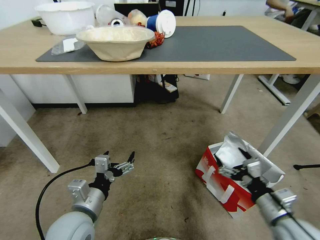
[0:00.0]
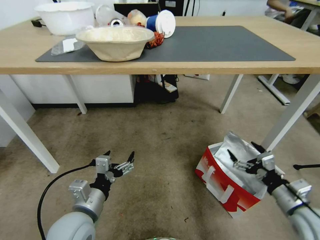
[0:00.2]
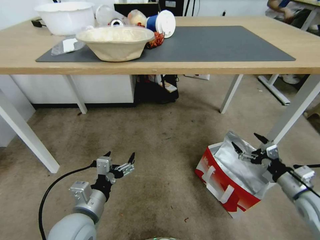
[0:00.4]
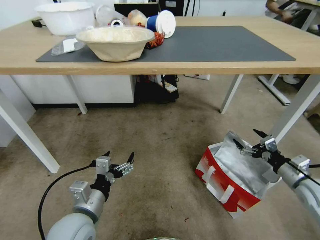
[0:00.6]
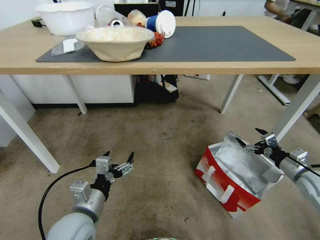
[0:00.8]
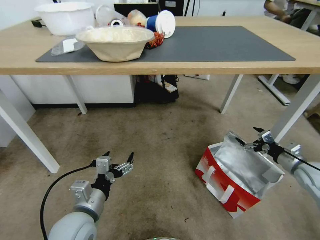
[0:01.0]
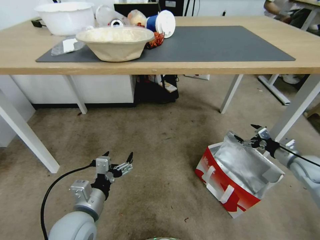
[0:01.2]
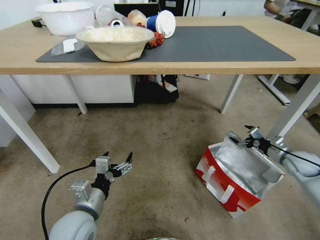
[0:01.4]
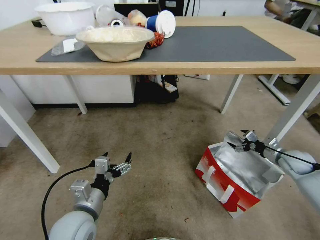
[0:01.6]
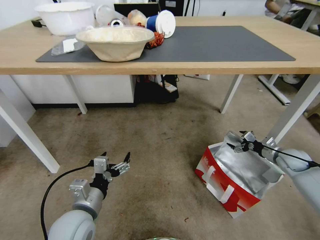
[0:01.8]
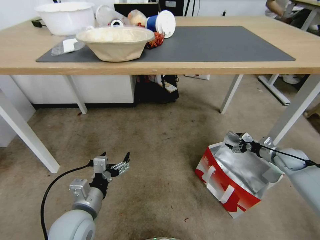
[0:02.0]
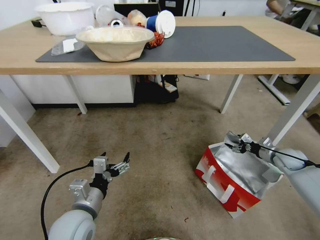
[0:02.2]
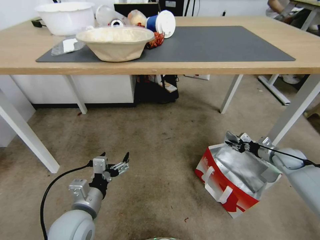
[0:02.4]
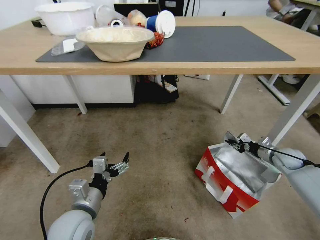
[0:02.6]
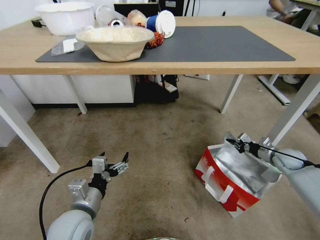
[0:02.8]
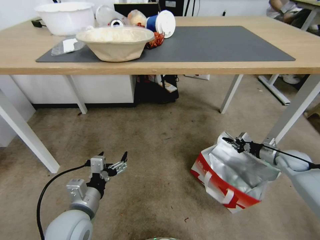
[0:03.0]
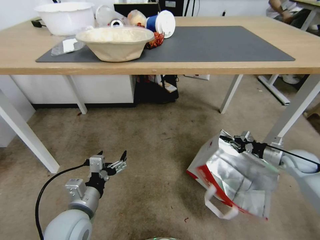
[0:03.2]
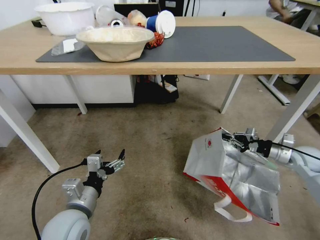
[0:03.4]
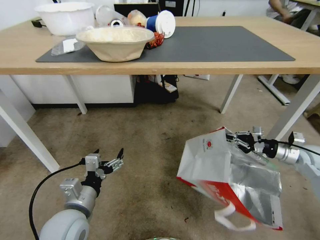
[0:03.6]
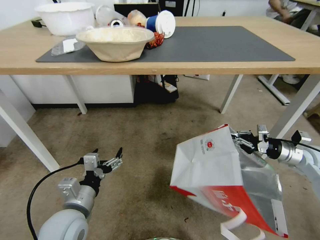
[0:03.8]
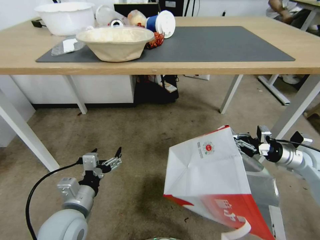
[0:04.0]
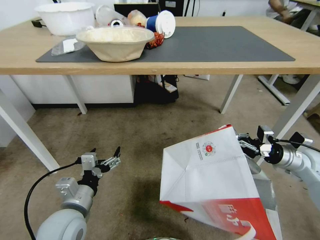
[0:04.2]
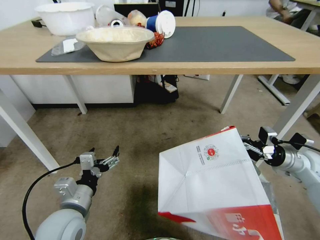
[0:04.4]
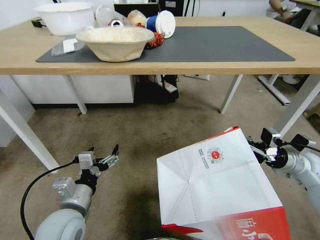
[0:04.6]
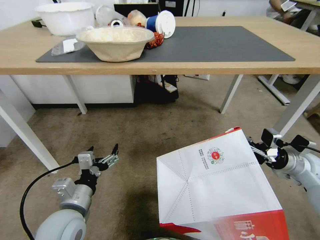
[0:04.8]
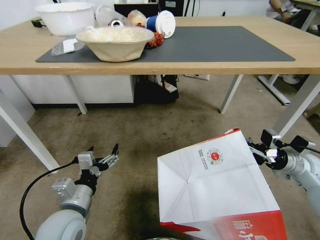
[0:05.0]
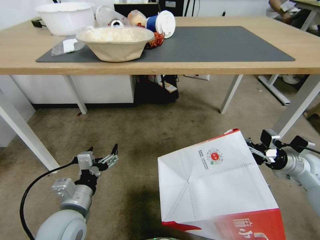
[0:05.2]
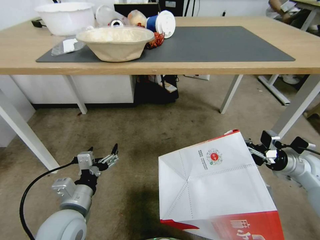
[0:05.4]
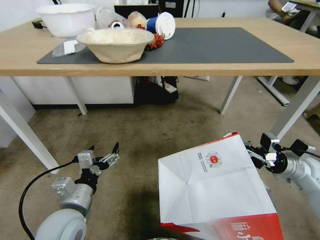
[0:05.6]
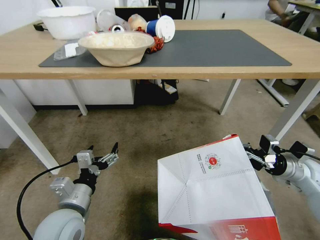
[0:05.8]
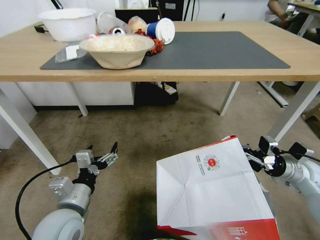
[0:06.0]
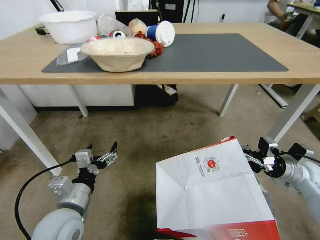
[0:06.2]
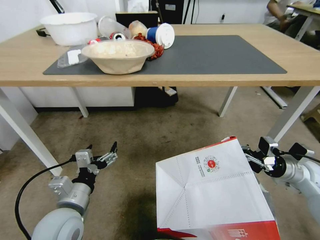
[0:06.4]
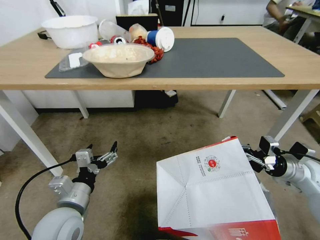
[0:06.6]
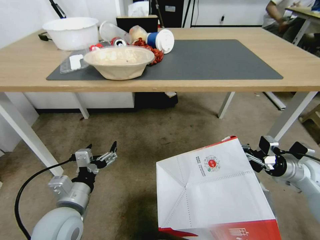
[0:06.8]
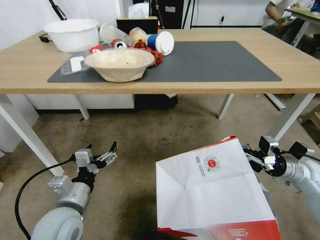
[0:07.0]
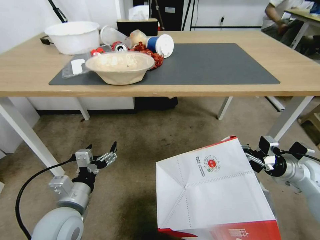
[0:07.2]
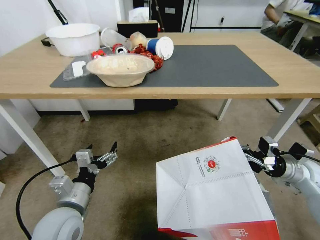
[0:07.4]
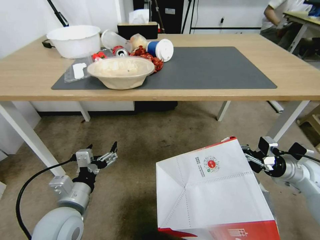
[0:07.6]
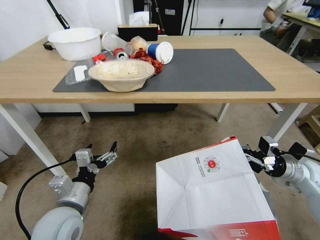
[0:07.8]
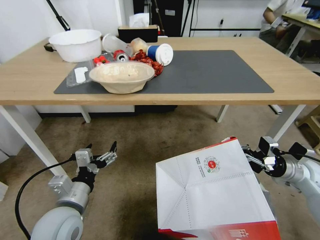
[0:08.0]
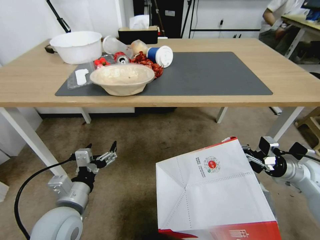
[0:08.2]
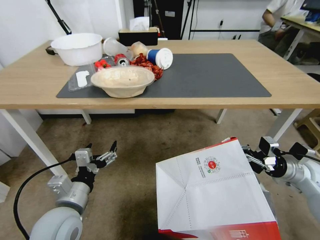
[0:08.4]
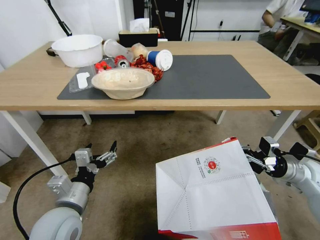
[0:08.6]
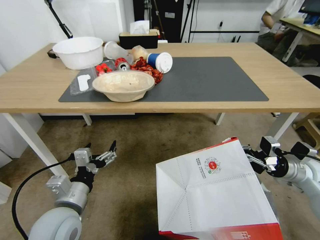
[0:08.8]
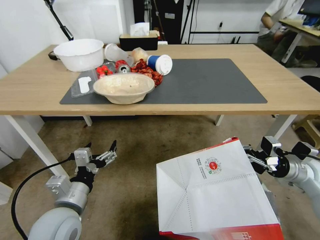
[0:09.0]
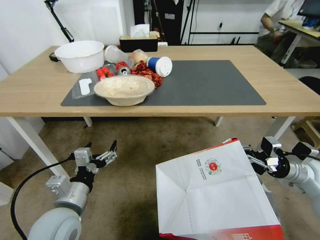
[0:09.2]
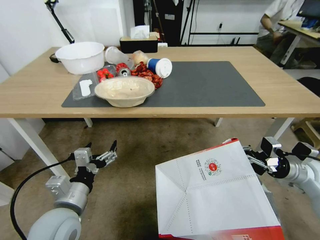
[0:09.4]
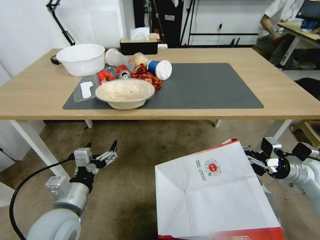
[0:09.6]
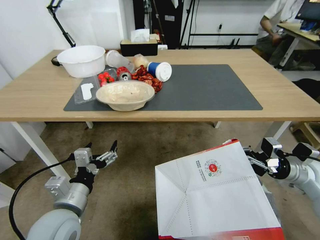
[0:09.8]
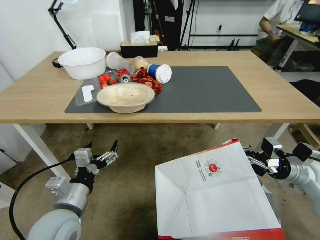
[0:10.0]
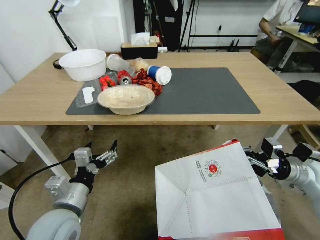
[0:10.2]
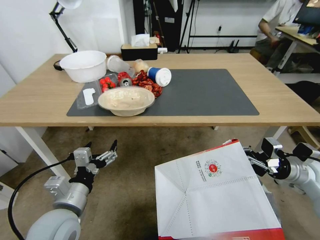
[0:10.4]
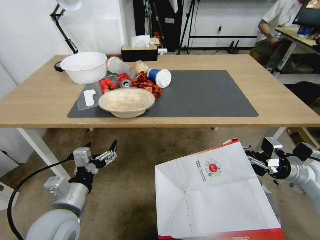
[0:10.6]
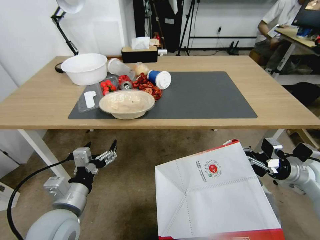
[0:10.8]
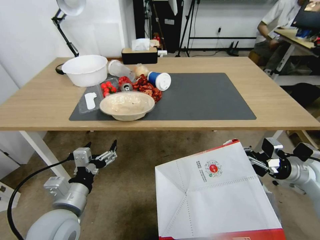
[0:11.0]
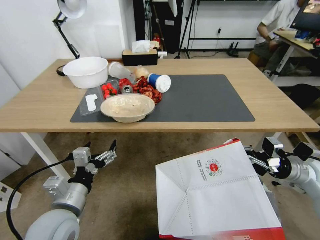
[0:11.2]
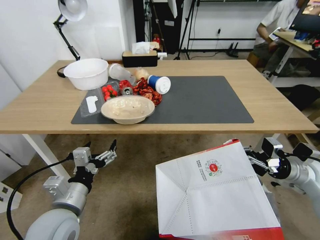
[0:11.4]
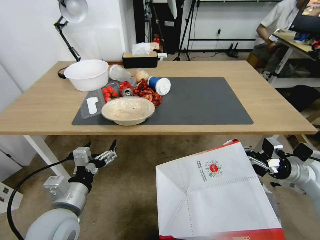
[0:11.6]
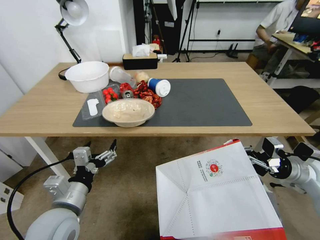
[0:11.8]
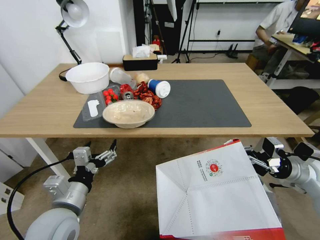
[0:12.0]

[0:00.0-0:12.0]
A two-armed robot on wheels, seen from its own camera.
Task of the whole recording: Pick up the food delivery bag from the floor and place it on the table.
0:00.0 to 0:01.6: The right gripper heads forward and to the right, covering some 30 cm.
0:01.6 to 0:03.0: The right gripper closes its fingers.
0:03.0 to 0:04.4: The right gripper goes roughly 10 cm upward, to the left and backward.

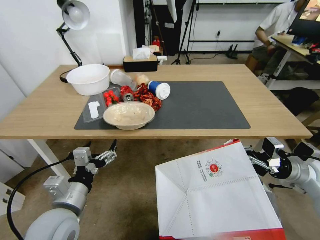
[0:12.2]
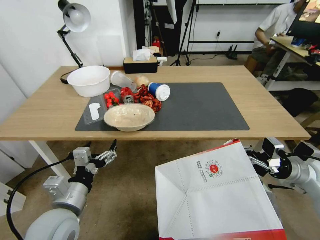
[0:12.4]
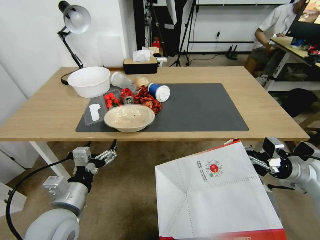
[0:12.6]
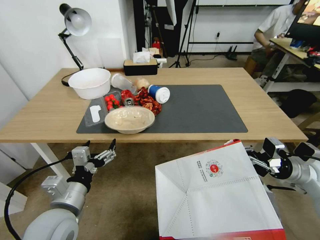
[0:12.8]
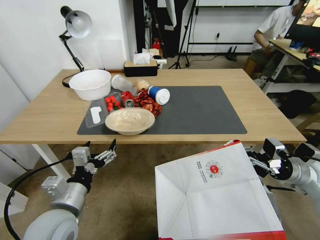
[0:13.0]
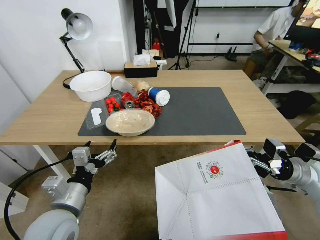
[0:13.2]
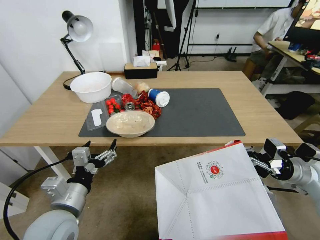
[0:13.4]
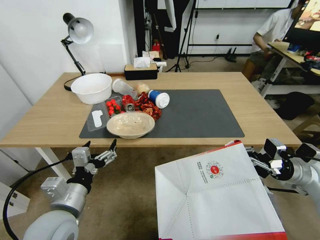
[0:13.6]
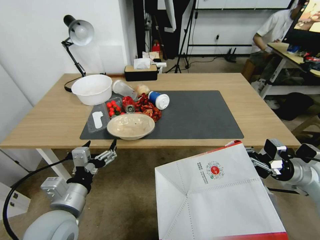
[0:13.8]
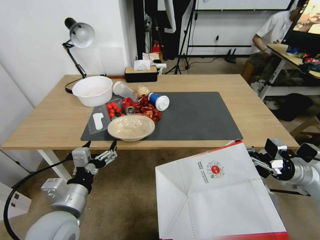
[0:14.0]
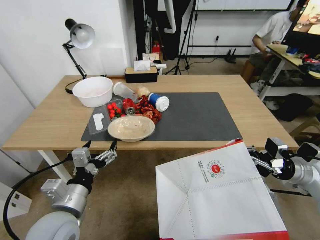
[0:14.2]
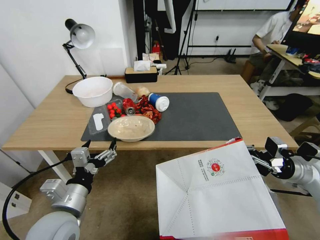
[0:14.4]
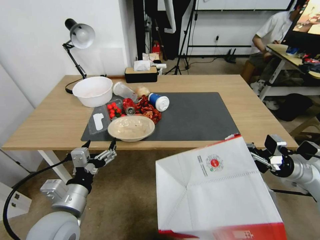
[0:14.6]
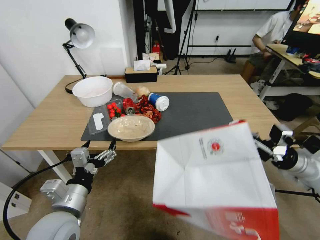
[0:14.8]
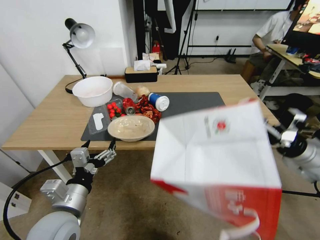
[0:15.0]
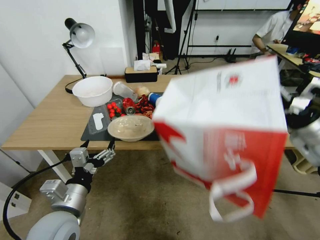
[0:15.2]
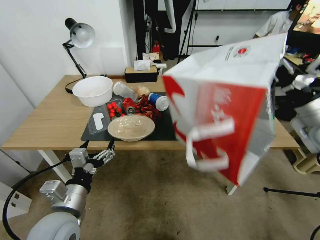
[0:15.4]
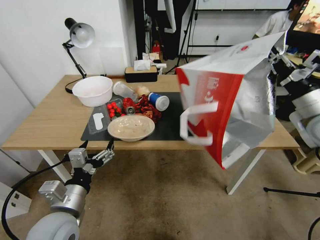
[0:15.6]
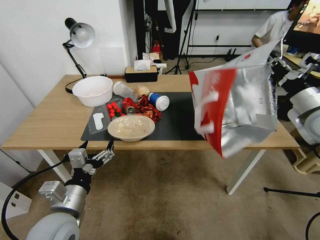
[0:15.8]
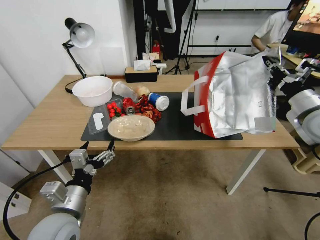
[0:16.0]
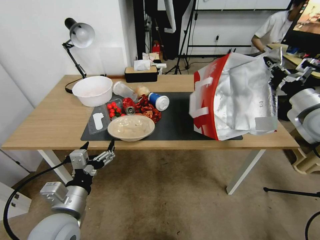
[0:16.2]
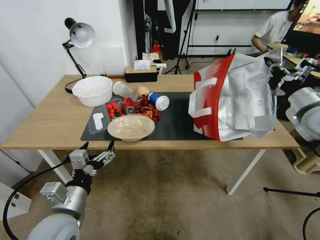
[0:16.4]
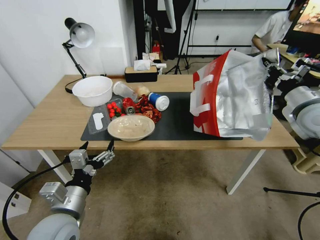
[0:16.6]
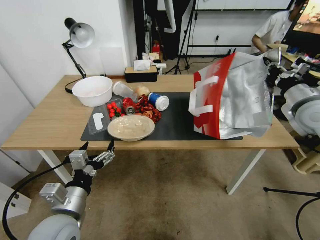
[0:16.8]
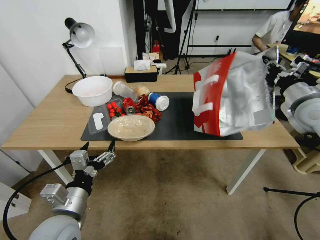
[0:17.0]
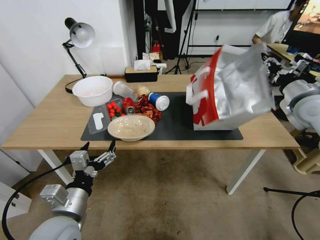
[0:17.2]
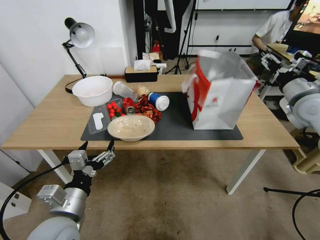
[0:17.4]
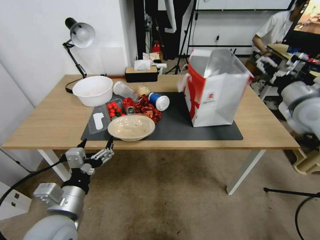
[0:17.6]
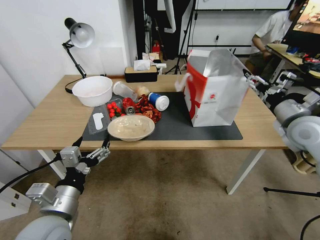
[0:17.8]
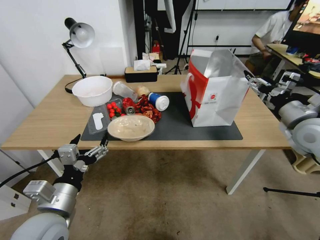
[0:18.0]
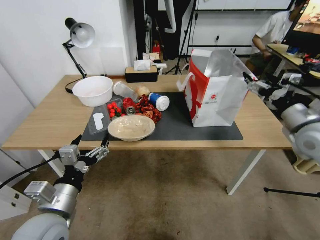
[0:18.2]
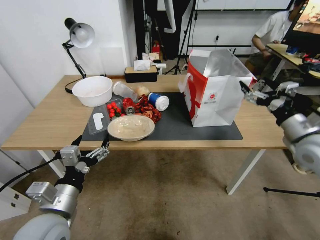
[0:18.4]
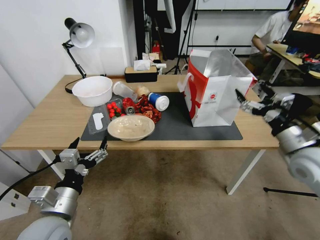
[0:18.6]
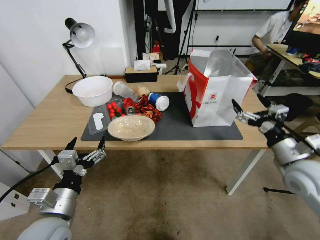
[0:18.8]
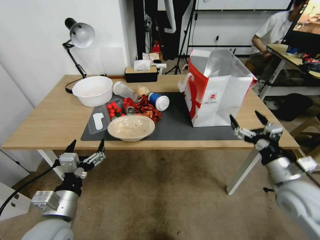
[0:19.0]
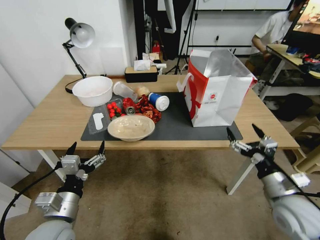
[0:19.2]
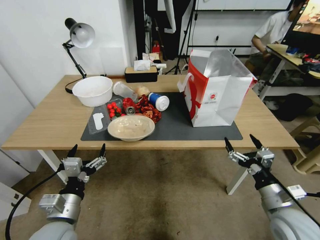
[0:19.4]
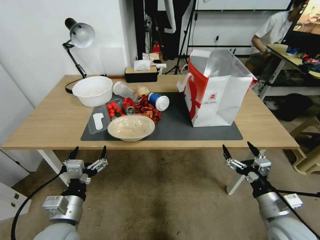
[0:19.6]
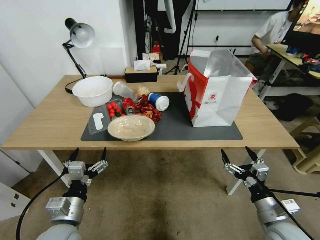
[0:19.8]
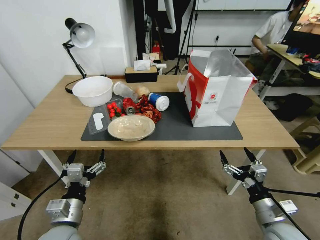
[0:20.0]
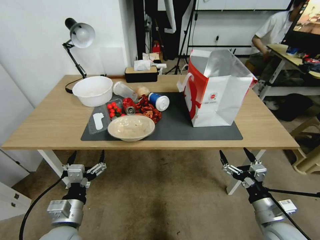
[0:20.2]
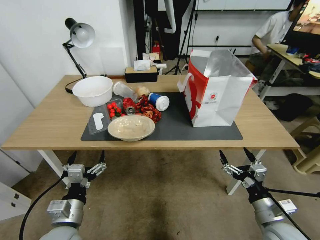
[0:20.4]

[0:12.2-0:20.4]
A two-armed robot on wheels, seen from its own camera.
Task of the whole recording: Pick up the food delivery bag from the floor and place it on the table.
0:13.8 to 0:15.4: The right gripper is displaced upward by roughly 15 cm.
0:15.4 to 0:17.2: The right gripper is displaced forward by some 5 cm.
0:17.2 to 0:18.8: The right gripper moves backward and downward, about 20 cm, and opens its fingers.
0:18.8 to 0:20.4: The left gripper travels downward by some 5 cm. The right gripper moves downward and backward, some 15 cm.

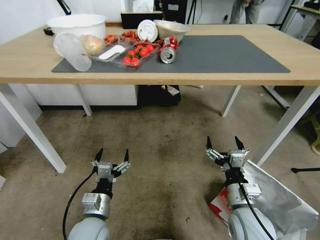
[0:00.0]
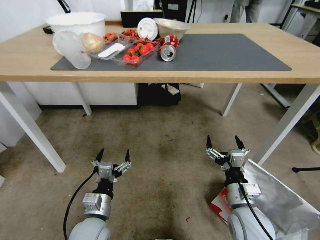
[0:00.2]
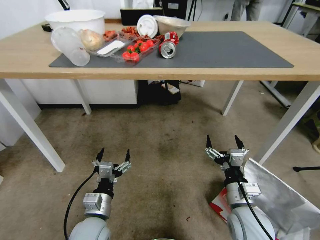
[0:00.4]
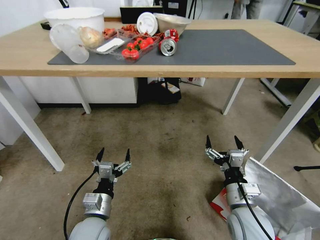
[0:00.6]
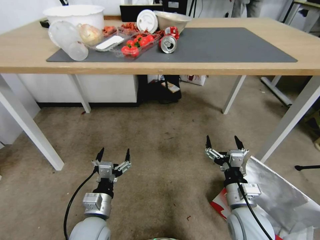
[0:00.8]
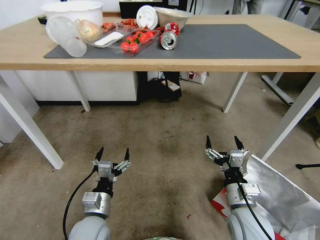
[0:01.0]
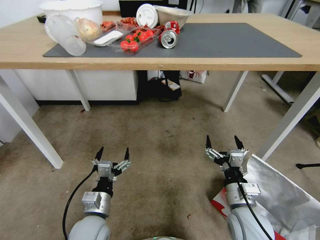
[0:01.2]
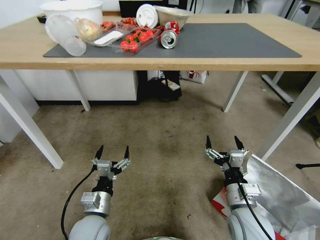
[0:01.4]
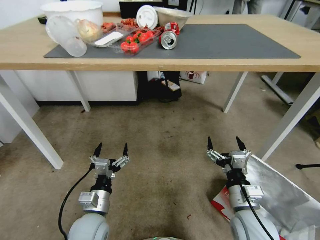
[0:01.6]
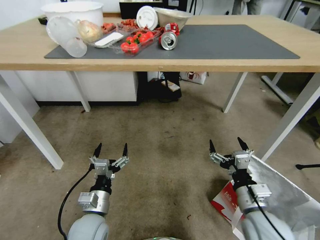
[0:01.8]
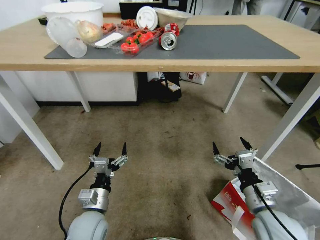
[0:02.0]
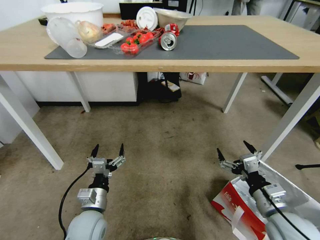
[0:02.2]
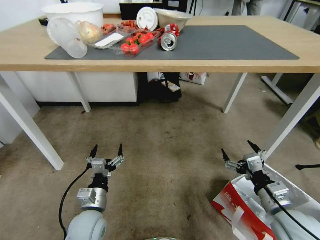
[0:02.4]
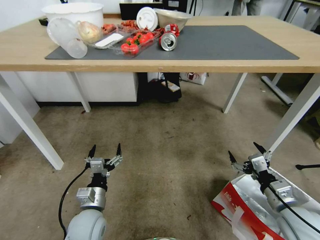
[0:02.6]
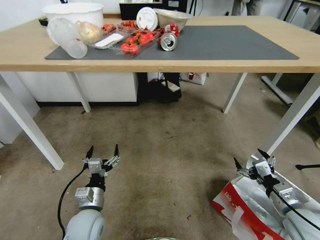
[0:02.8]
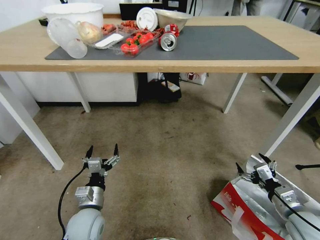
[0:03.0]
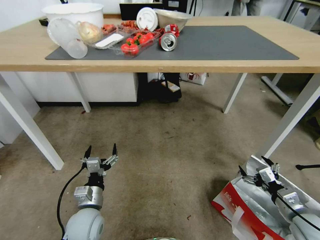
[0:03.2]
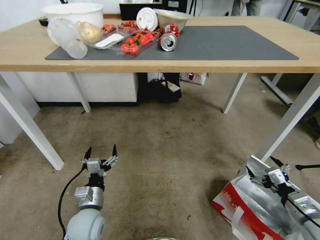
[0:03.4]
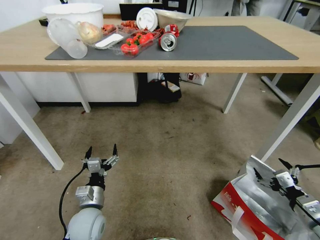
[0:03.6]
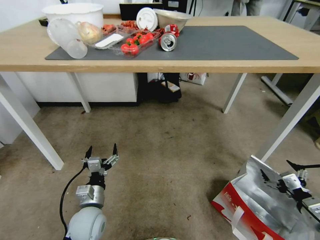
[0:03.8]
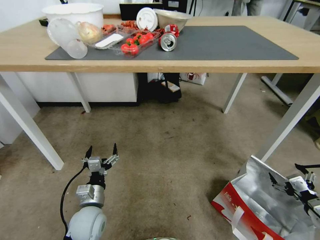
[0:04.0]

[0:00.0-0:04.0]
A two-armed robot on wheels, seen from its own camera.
Task of the whole recording: Pick up the food delivery bag from the floor and place it on the table.
0:01.4 to 0:02.6: The right gripper is displaced to the right by roughly 15 cm.
0:02.6 to 0:04.0: The right gripper shifts approximately 15 cm to the right.
